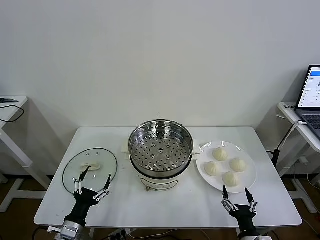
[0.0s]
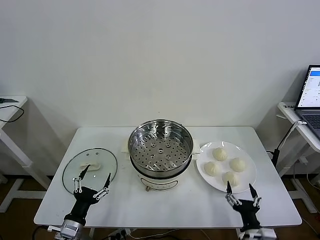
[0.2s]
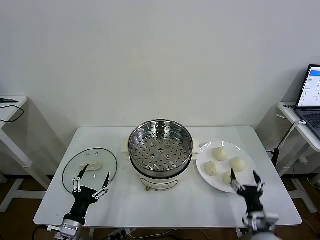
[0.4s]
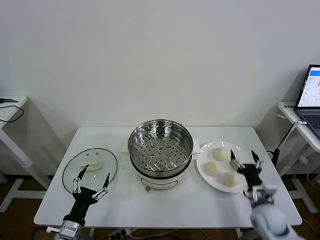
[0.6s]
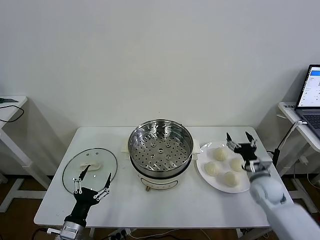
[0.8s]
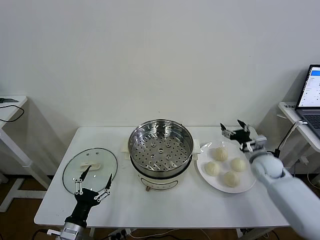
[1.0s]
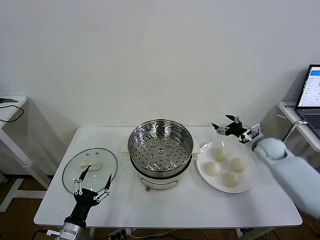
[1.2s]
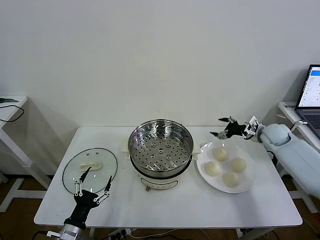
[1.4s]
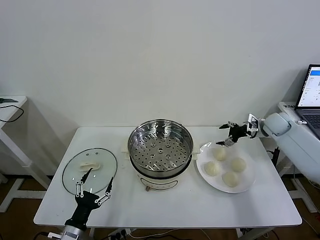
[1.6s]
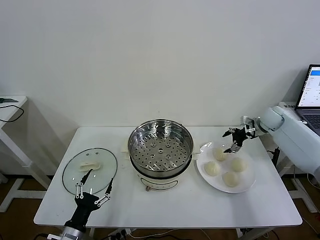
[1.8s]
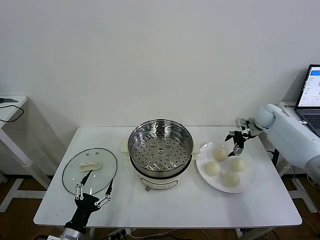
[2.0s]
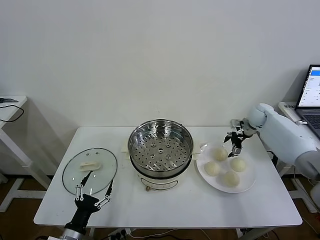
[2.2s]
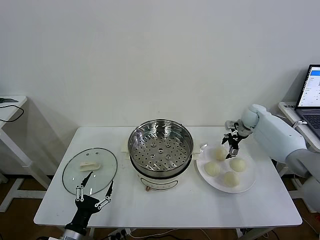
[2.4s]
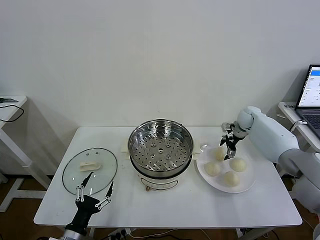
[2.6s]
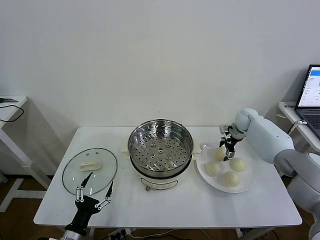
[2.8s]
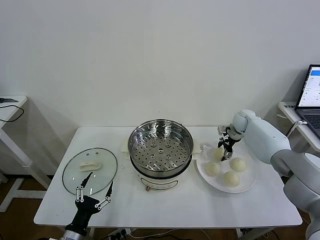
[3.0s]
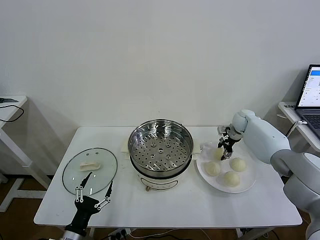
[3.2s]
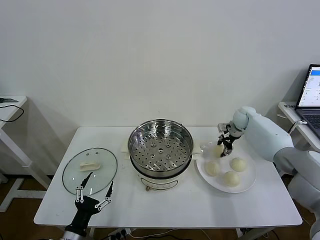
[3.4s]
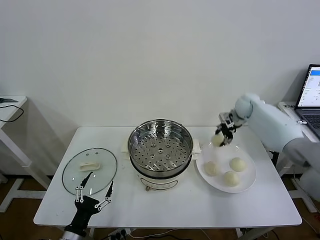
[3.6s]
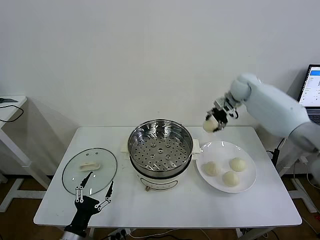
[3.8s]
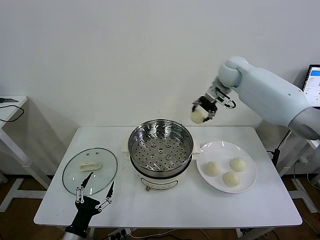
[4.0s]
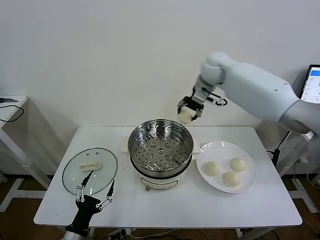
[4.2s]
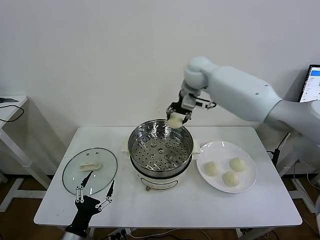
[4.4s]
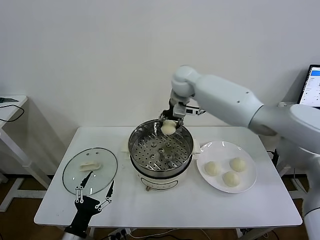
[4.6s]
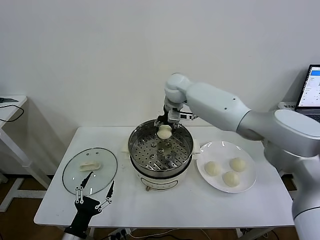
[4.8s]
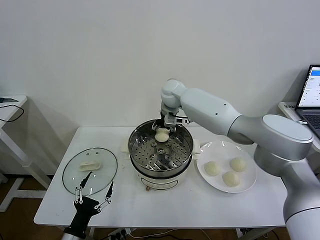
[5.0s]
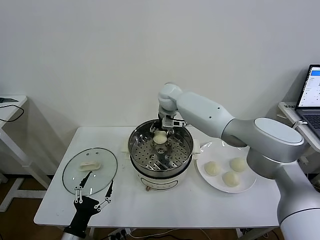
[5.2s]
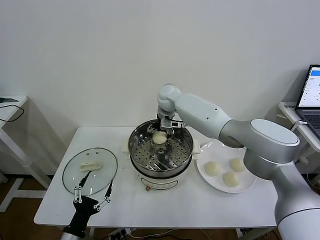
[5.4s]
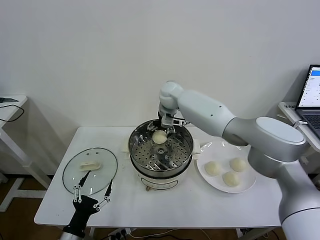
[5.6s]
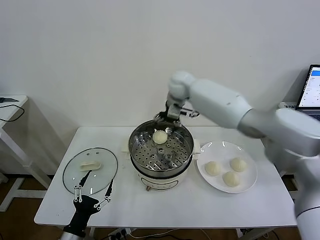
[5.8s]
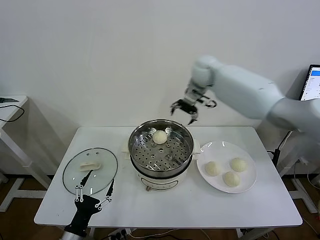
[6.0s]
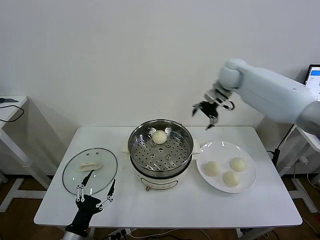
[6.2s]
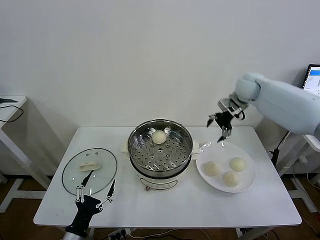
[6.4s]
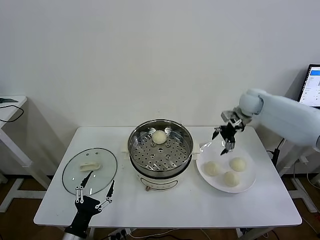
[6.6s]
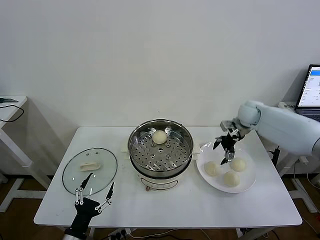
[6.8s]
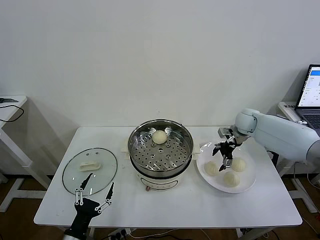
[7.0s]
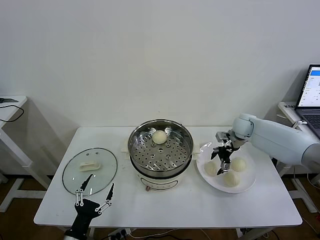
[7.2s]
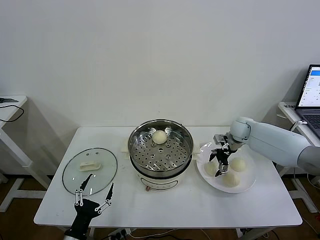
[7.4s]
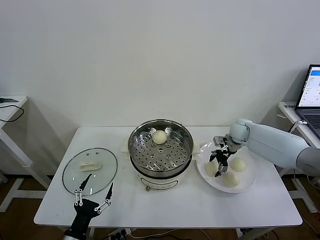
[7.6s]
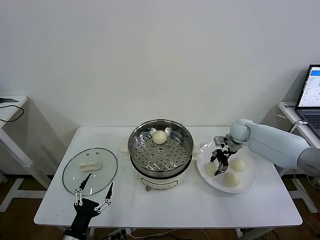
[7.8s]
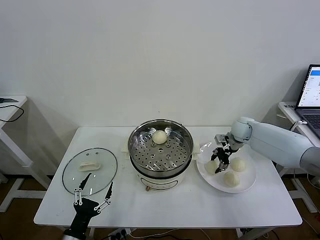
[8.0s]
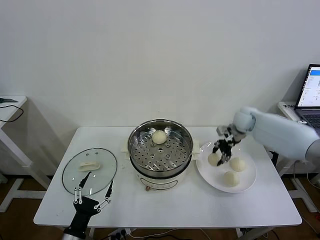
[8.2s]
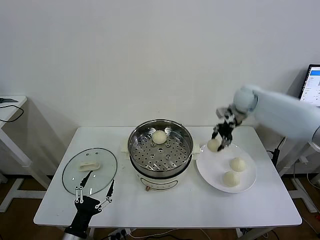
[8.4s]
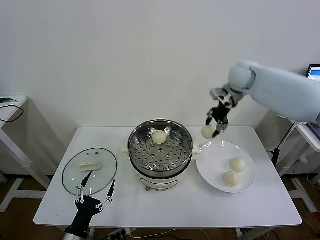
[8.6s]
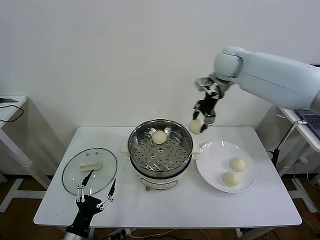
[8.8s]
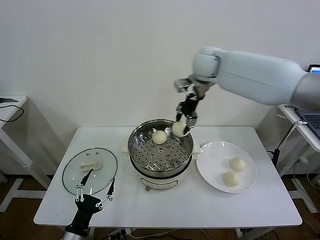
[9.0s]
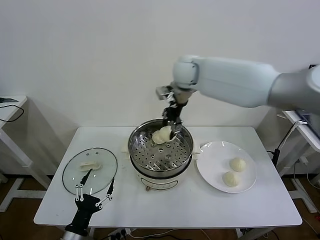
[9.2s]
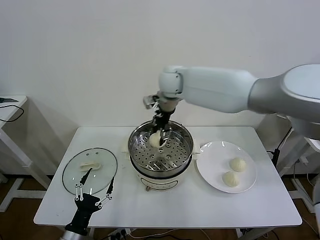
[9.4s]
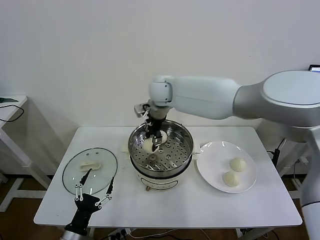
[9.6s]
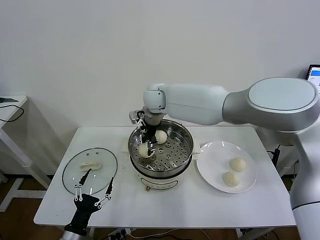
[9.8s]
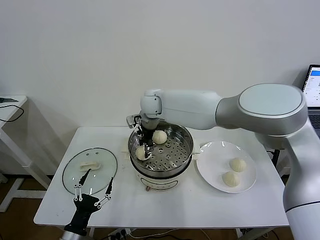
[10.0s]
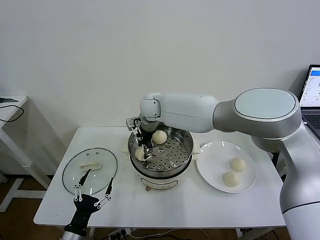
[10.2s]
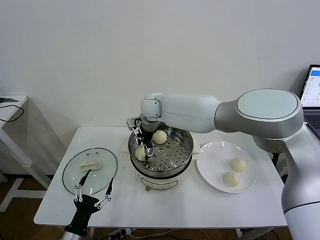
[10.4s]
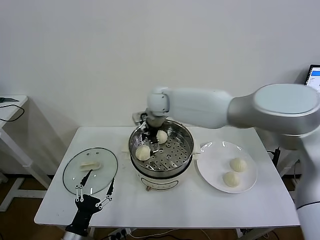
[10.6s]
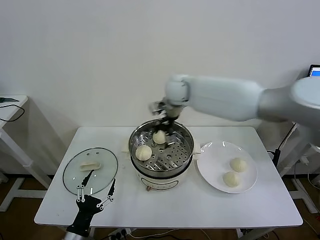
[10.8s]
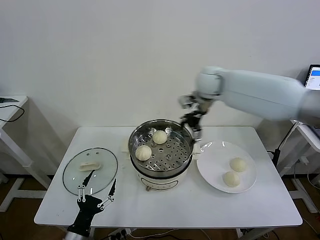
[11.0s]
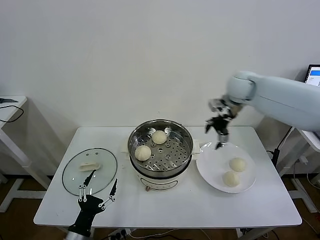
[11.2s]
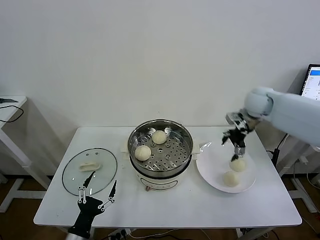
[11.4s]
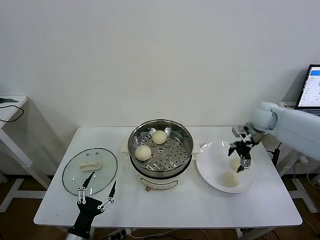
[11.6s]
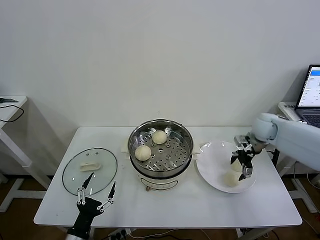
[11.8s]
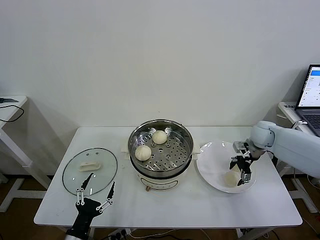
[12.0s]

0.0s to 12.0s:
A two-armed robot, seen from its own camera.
Task of the whole recording: take steamed baozi put them in steamer then cover it.
Step, 0.0s to 3.0s: Grasp the baozi in the plate with right gripper.
Step, 3.2s to 5.4s: Place the baozi on the steamer with right gripper.
Step, 5.8s to 7.6s: Grasp the baozi in the plate with right gripper.
Step, 7.8s to 10.4s: Place the baozi on the steamer with right gripper.
1.6s to 3.0s: The right gripper goes roughly 10 cm to the left, forward and downward, and closes its fingers.
3.0s to 4.4s: The right gripper travels to the left and upward by some 35 cm.
4.4s to 6.0s: The right gripper travels to the right by some 10 cm, and opens its fingers.
6.0s to 7.6s: The right gripper is displaced downward and to the right by approximately 25 cm, and closes its fingers.
7.6s to 9.0s: The right gripper goes roughly 35 cm upward and to the left, and closes.
9.0s to 10.4s: The right gripper goes about 20 cm to the left and downward, and opens.
10.4s to 12.0s: The right gripper travels to the right by approximately 40 cm.

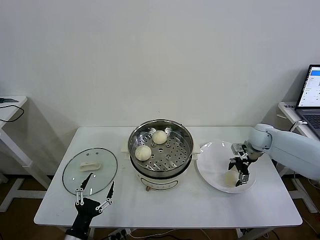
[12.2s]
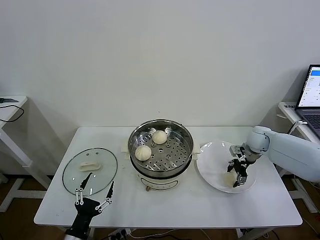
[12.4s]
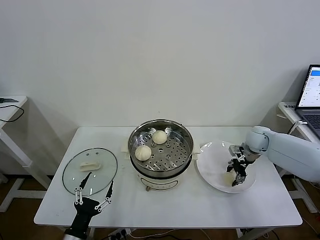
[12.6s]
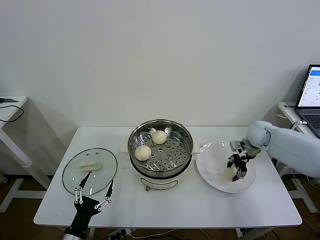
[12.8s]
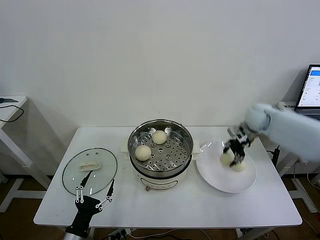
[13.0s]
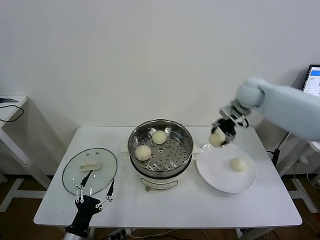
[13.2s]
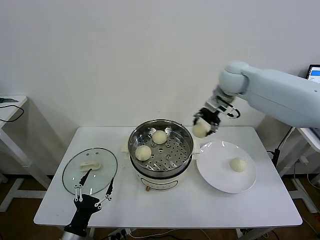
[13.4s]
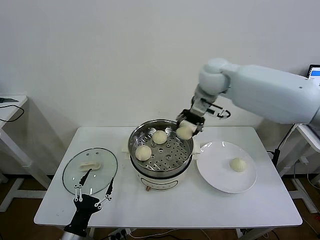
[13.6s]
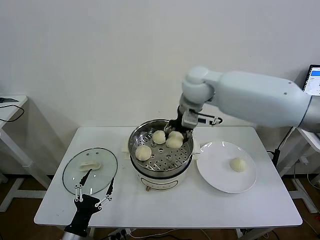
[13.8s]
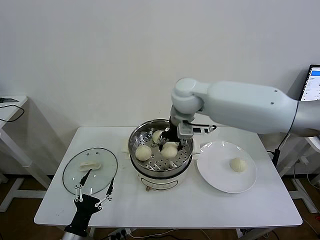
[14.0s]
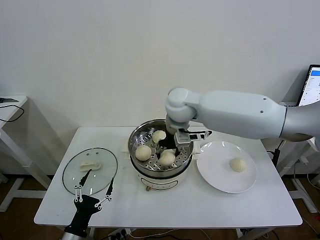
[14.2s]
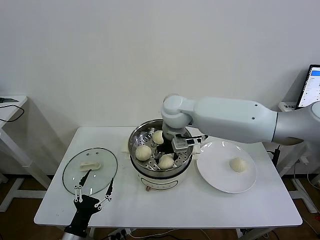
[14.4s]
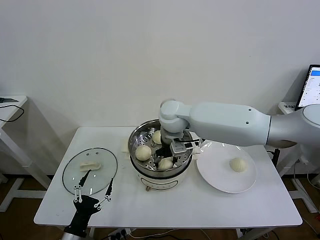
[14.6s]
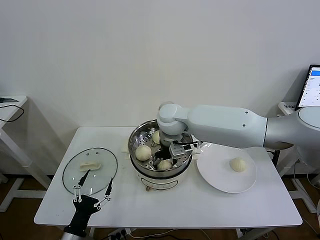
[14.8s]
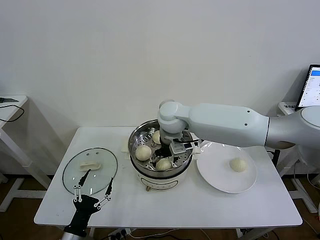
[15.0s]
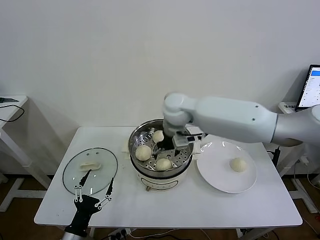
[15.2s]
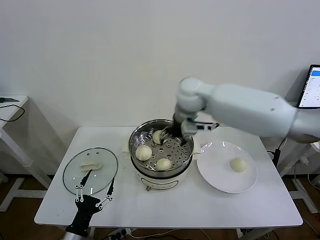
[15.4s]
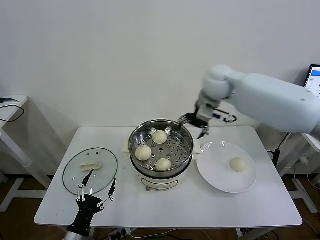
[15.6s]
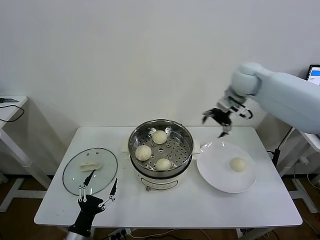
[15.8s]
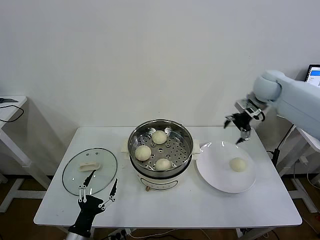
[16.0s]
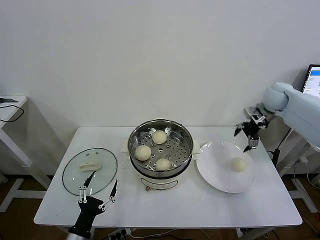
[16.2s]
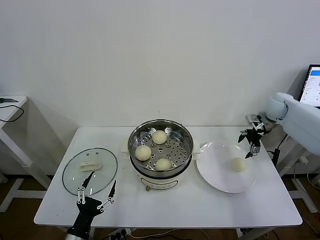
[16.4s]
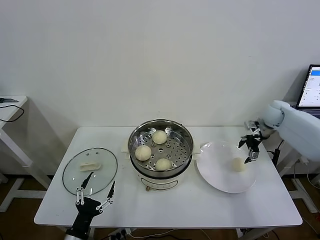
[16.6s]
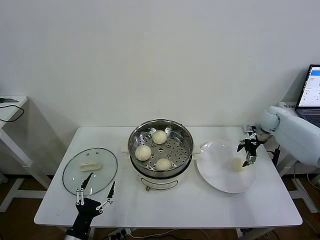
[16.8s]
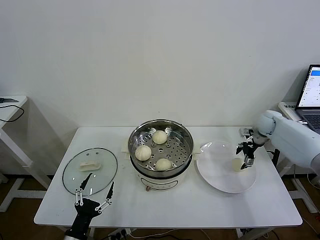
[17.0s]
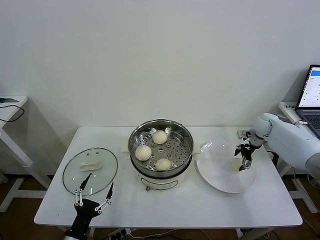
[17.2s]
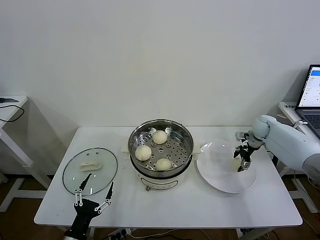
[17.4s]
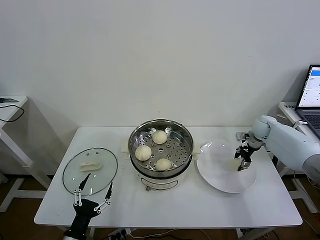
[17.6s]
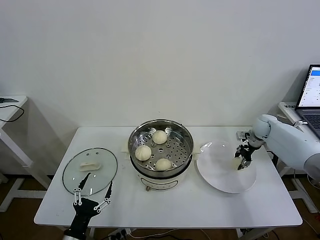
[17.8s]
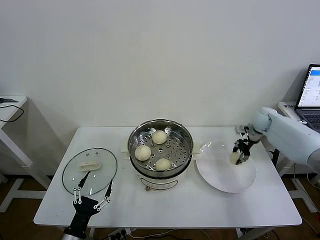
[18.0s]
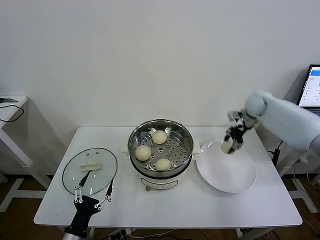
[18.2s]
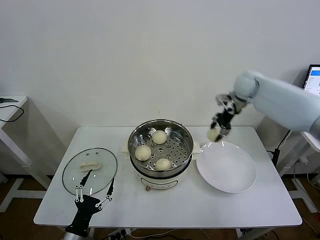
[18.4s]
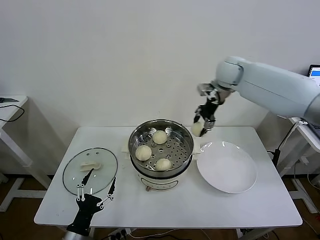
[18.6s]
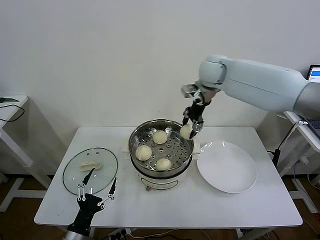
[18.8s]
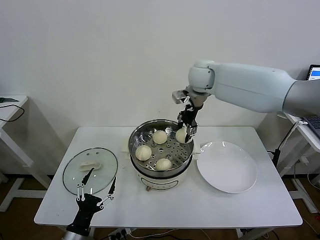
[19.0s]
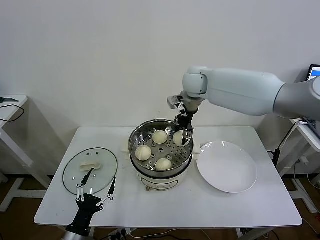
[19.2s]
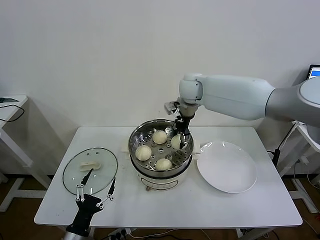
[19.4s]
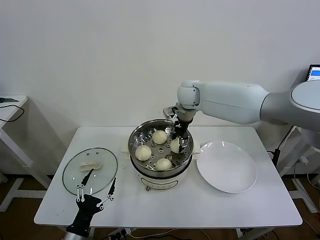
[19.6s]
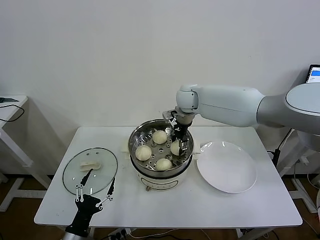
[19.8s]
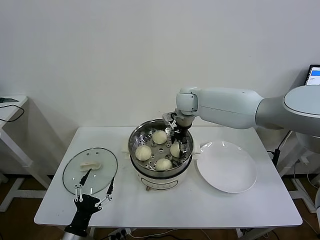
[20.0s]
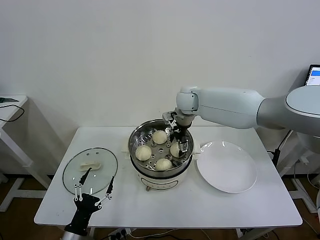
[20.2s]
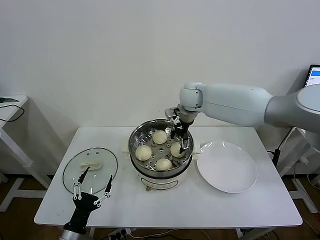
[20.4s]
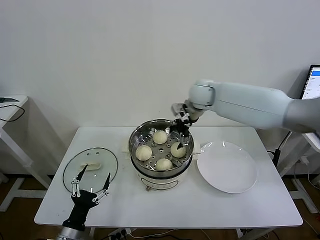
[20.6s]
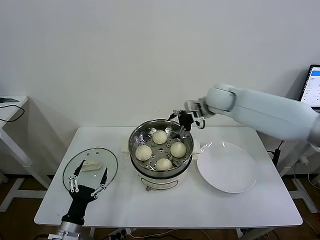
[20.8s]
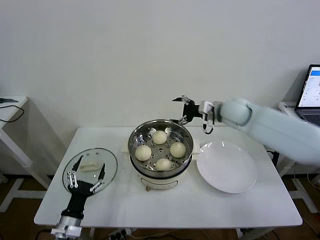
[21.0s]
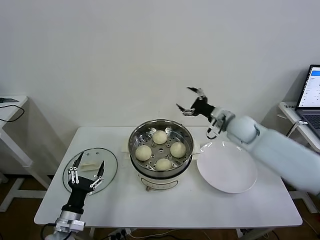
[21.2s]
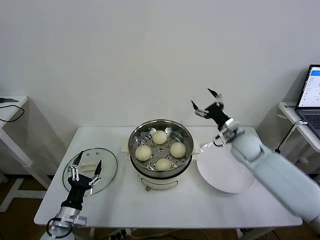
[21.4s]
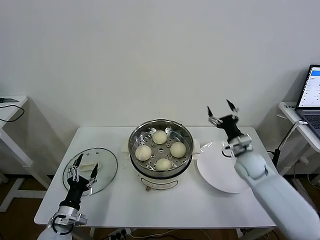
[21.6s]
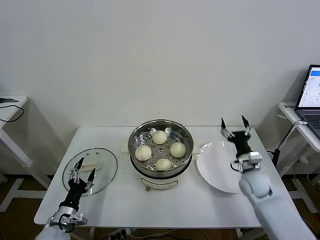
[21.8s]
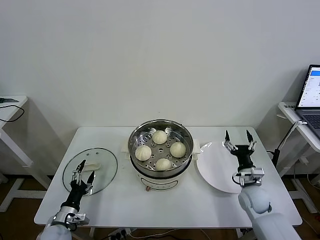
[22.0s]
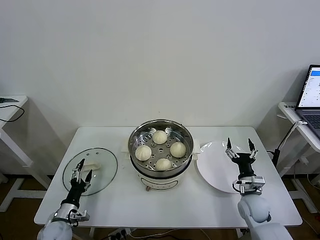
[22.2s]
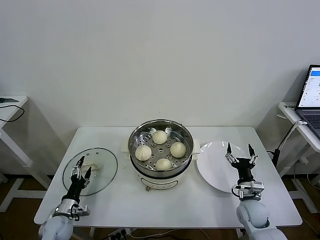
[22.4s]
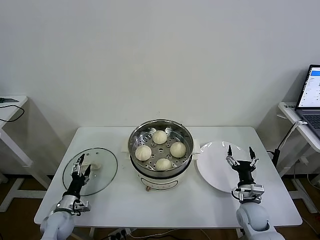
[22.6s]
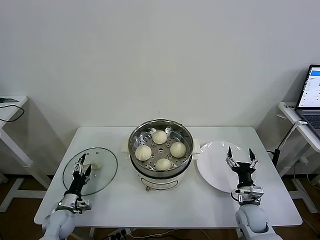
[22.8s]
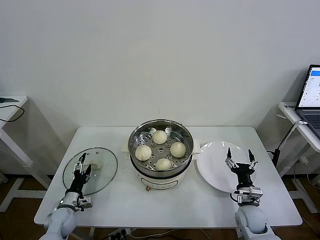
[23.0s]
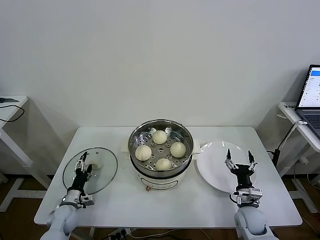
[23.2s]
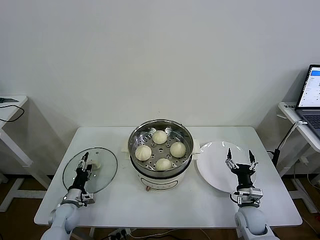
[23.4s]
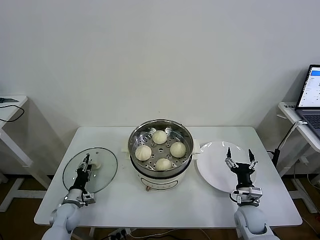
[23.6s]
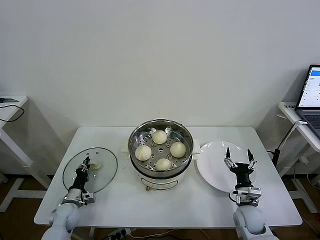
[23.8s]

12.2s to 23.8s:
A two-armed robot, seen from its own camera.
Task of the whole recording: take steamed baozi put them in steamer then cover it.
Step, 12.8s to 15.0s: Place the baozi on the steamer with right gripper.
Step, 15.2s to 17.6s: Grasp the baozi in the plate with right gripper.
Step, 17.8s to 20.2s: Place the baozi on the steamer with right gripper.
12.2s to 13.6s: The right gripper travels to the left and upward by about 35 cm, and closes.
13.6s to 15.0s: The right gripper travels to the left, downward and backward by approximately 15 cm, and opens up.
15.0s to 16.6s: The right gripper heads to the right, covering approximately 40 cm.
16.6s to 18.0s: The right gripper closes up.
18.0s to 19.4s: The right gripper is displaced to the left and upward by approximately 35 cm.
19.4s to 21.0s: The right gripper shifts roughly 15 cm to the right and backward, and opens its fingers.
21.0s to 22.4s: The left gripper is displaced forward, downward and to the left by about 15 cm, while the right gripper goes roughly 35 cm downward and backward.
22.4s to 23.8s: The left gripper shifts about 5 cm forward, and closes its fingers.
